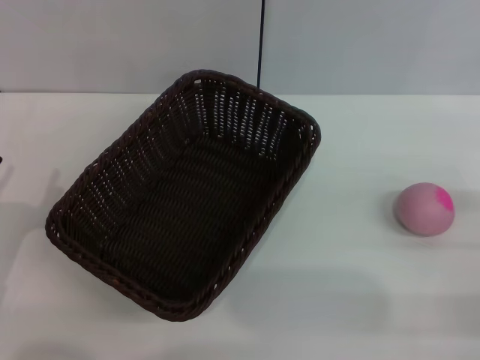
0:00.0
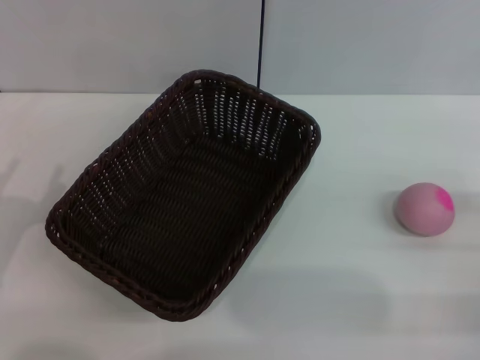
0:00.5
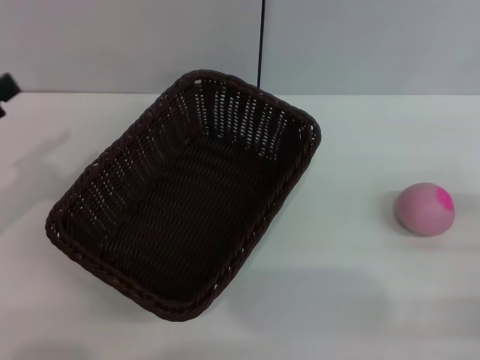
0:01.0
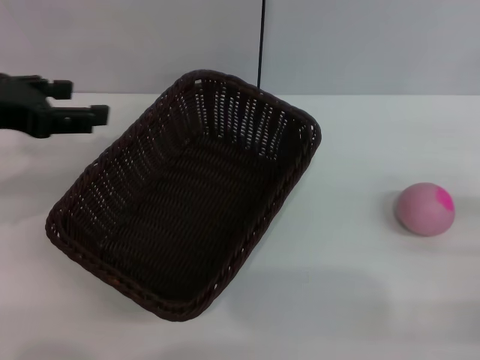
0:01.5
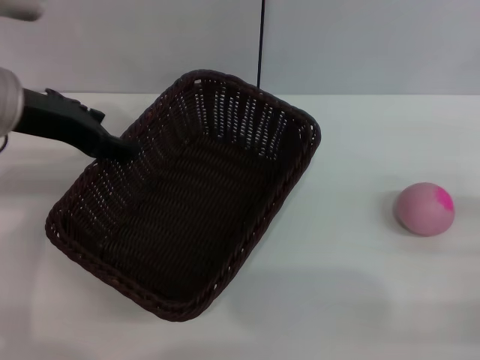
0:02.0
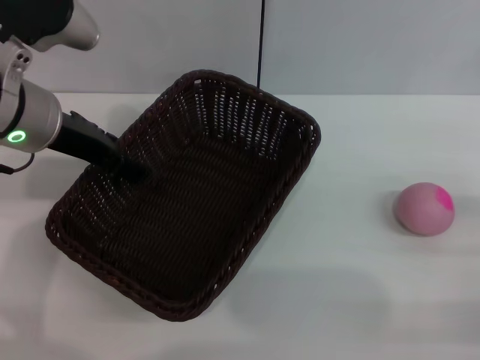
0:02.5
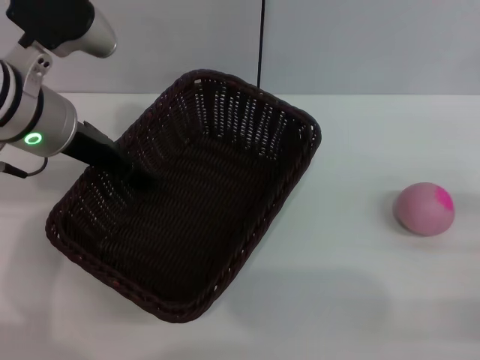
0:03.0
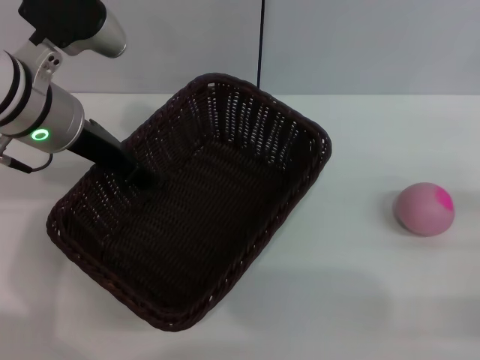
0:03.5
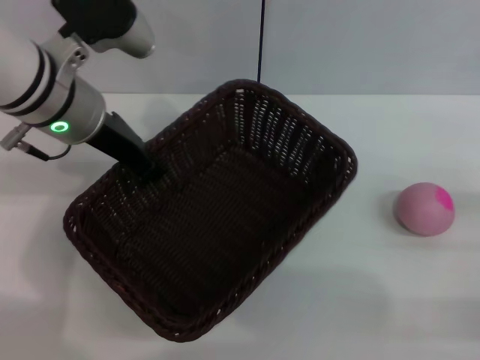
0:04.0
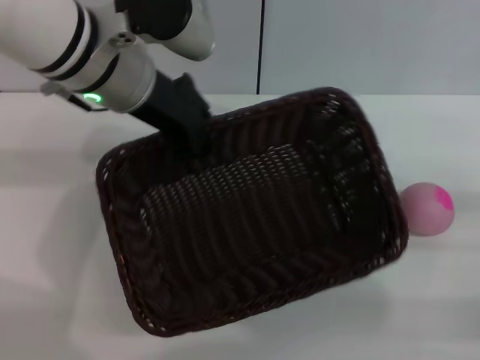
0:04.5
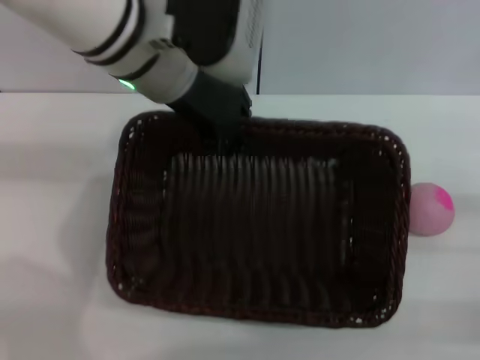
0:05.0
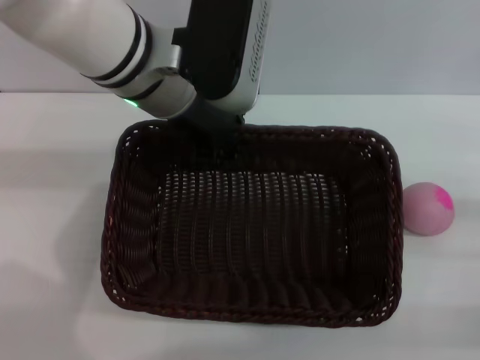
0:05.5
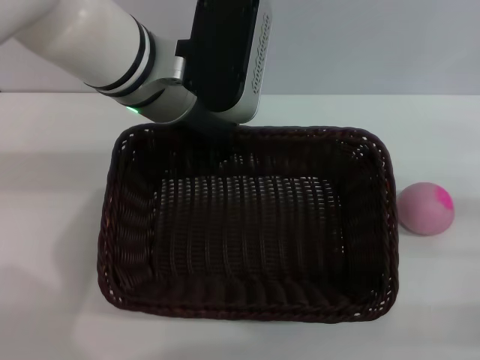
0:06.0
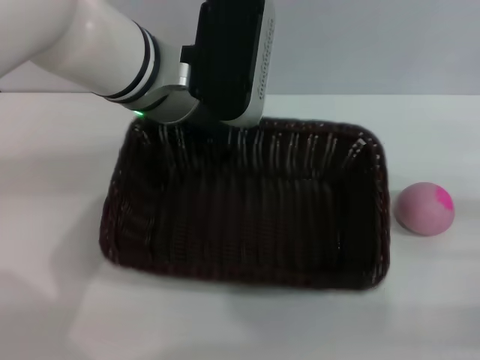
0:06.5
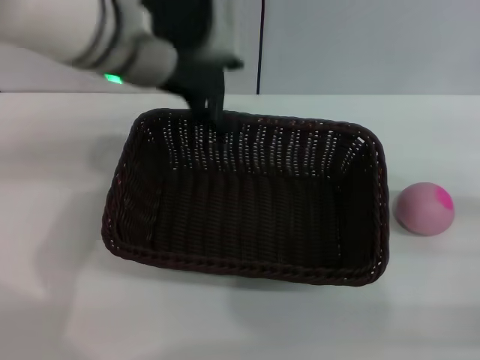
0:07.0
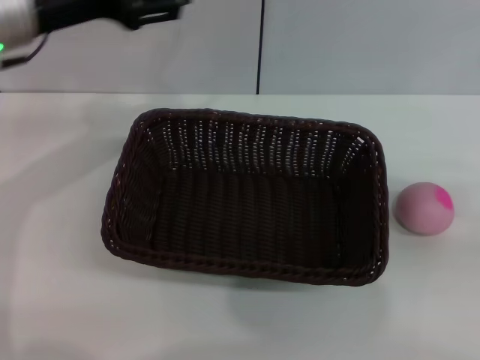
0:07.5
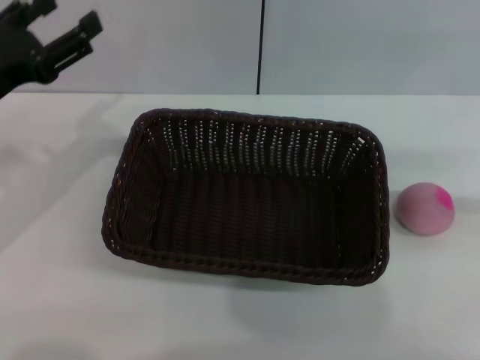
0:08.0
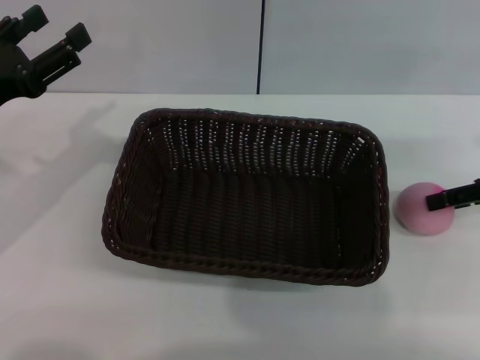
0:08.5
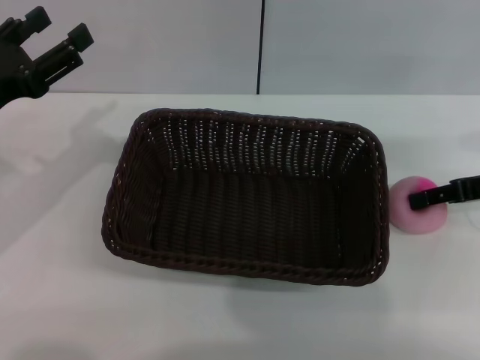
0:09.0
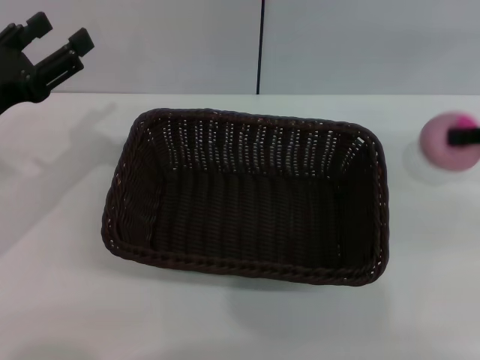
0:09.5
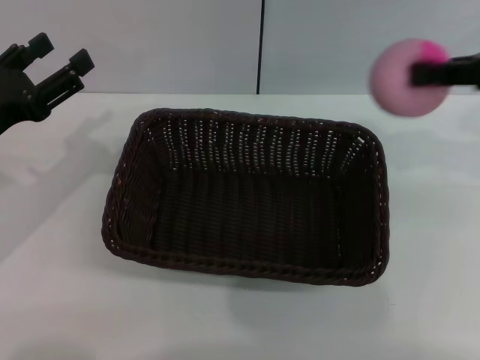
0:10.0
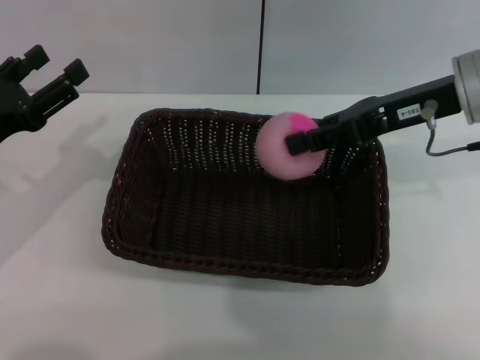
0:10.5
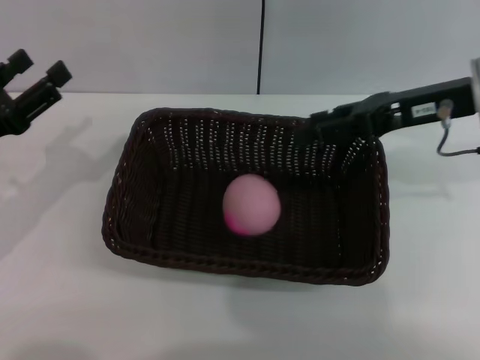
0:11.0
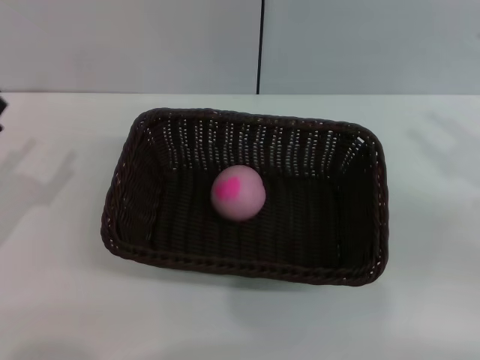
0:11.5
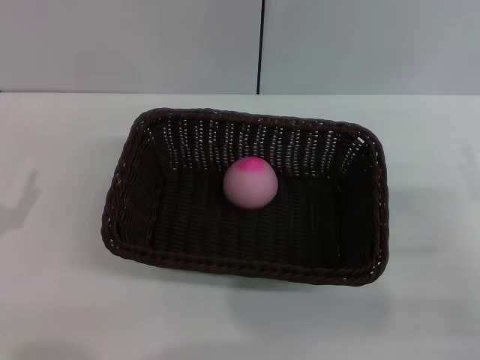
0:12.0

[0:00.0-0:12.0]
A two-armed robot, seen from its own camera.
Step, 0:00.0 to 0:04.0: Pick up the dark basket with the left gripper.
Step, 0:04.5 to 0:06.5: Place the dark basket in the center of view with the right gripper.
Step, 0:07.5 to 0:09.0: Pick up the peach with the left gripper.
Step, 0:10.0 to 0:11.0: Place the peach into the basket with the left gripper.
0:00.0 to 0:02.0: The left gripper goes some 25 cm upward, forward and to the right.
0:02.0 to 0:04.0: The left gripper is displaced to the right by roughly 5 cm, and closes its fingers.
0:04.0 to 0:06.0: The left gripper heads to the right, covering approximately 10 cm.
0:06.0 to 0:08.0: The left gripper travels to the left by some 20 cm, and opens; the right gripper travels upward and forward by some 20 cm.
0:08.0 to 0:10.0: The right gripper travels to the left by roughly 10 cm, goes downward and returns, approximately 10 cm each way, and closes its fingers.
0:10.0 to 0:12.0: The left gripper goes about 10 cm backward and downward. The right gripper heads downward and backward, covering about 20 cm, and opens up.

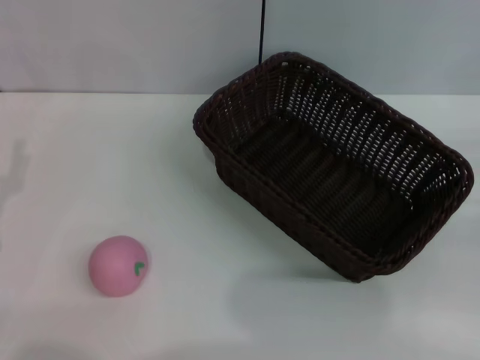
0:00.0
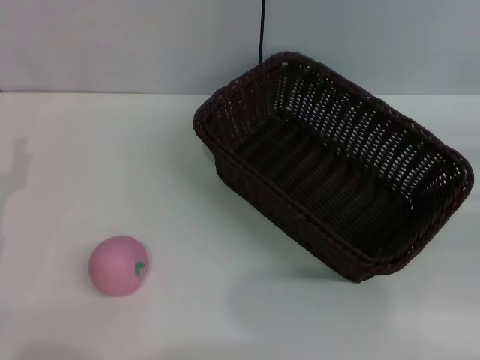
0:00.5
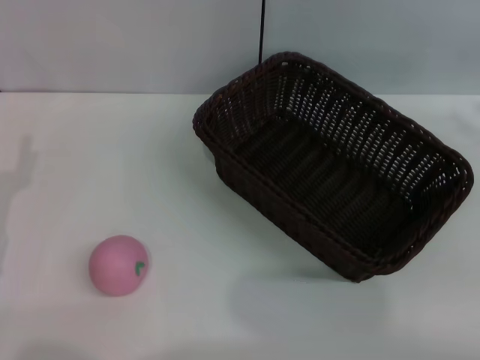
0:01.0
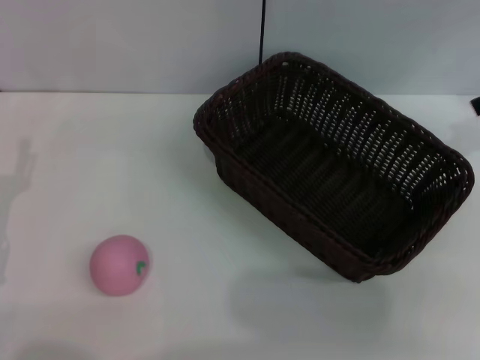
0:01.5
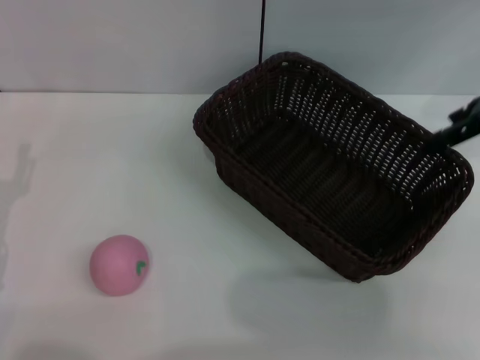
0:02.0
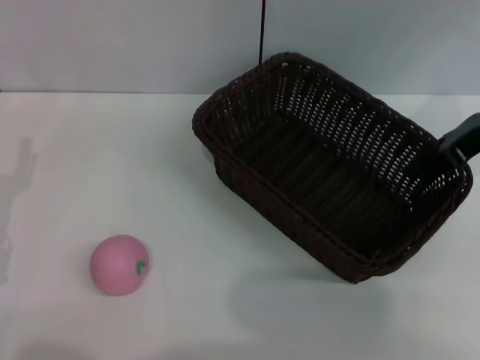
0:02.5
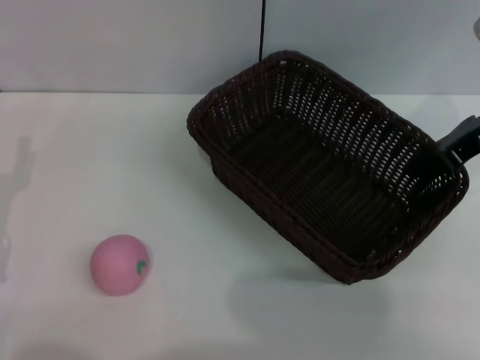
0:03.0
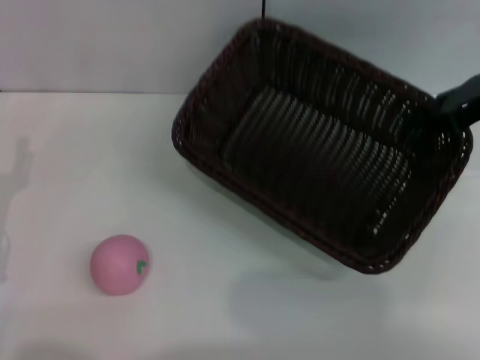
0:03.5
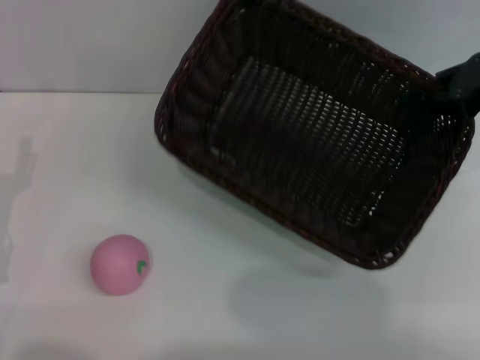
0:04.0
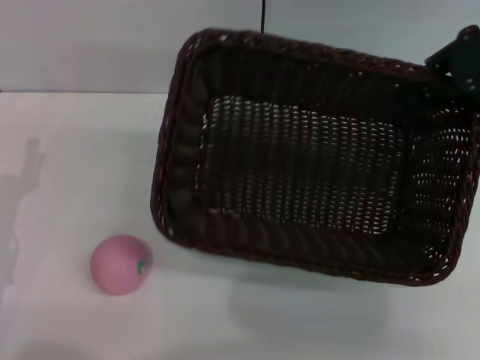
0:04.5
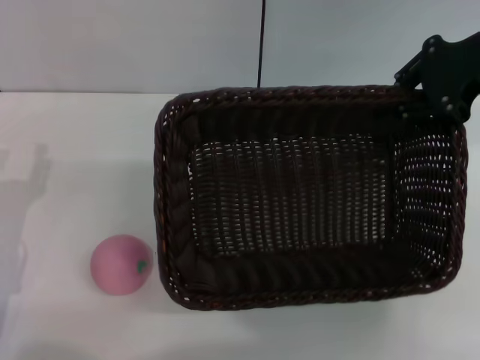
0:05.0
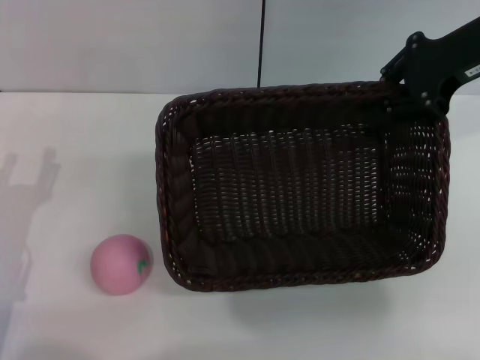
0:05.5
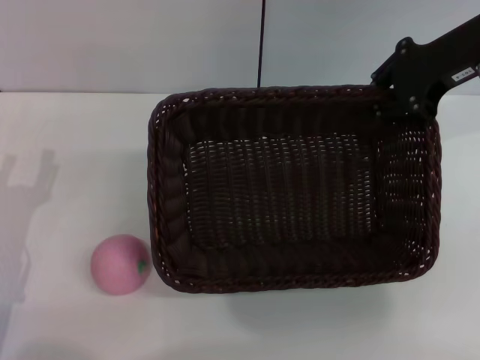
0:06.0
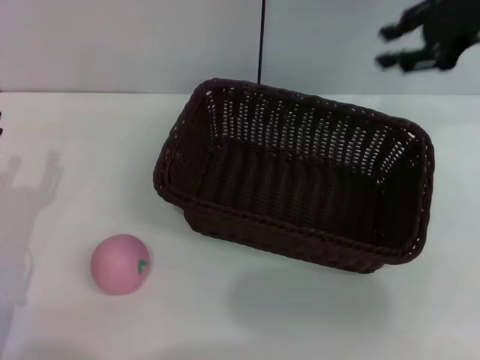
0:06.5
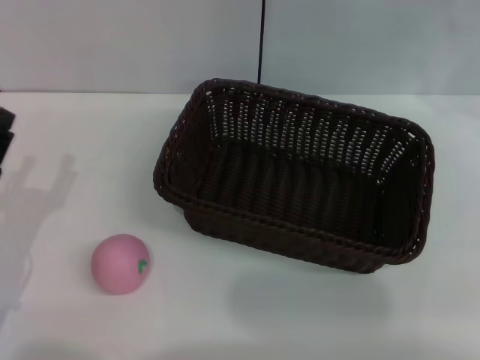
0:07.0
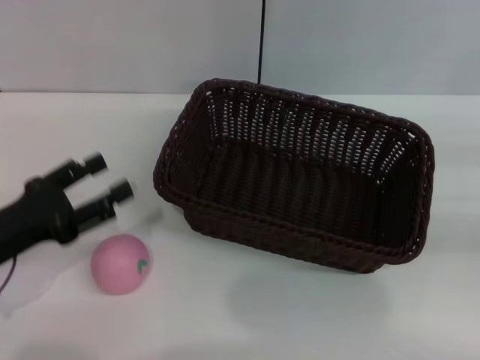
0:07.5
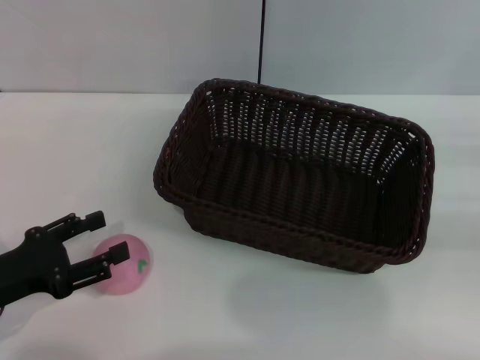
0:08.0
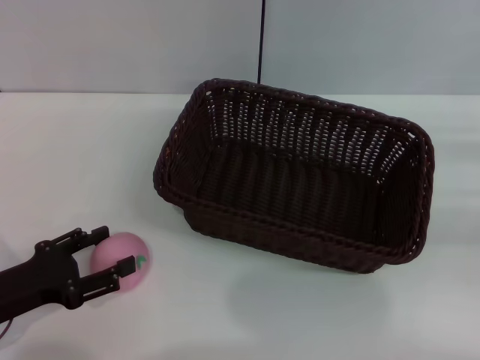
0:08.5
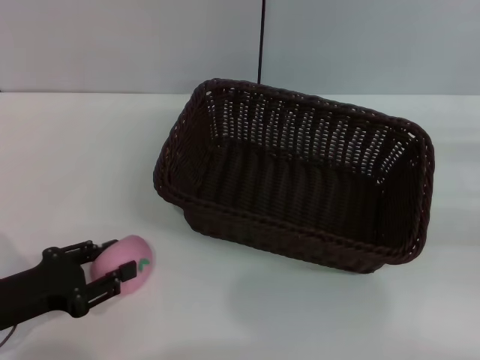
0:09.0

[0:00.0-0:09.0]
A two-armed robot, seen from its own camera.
Step, 0:00.0 to 0:03.5: Pick up the dark basket with the right gripper.
Step, 0:04.0 to 0:06.0: Place the dark basket in the center of view with the right gripper.
0:00.0 to 0:02.0: The right gripper shifts roughly 25 cm upward, forward and to the left, and opens.
0:02.0 to 0:04.5: The right gripper closes.
0:04.5 to 0:07.0: The right gripper goes approximately 10 cm to the right and downward, and opens its fingers.

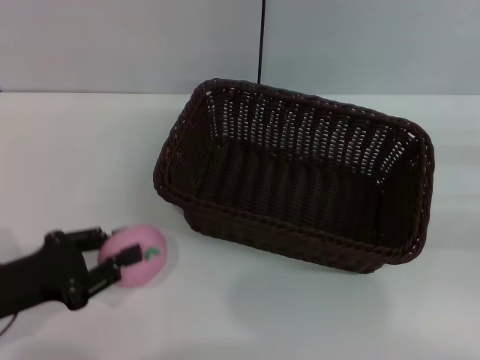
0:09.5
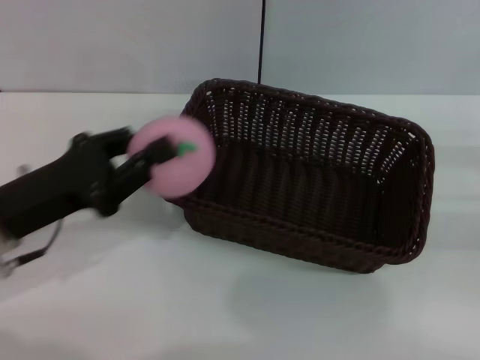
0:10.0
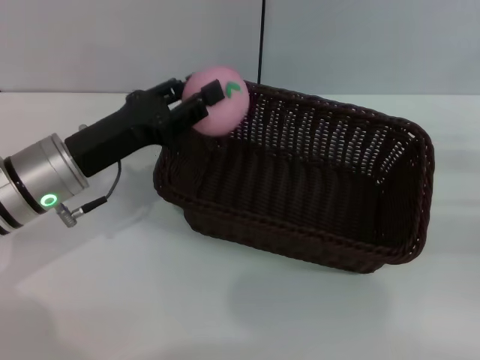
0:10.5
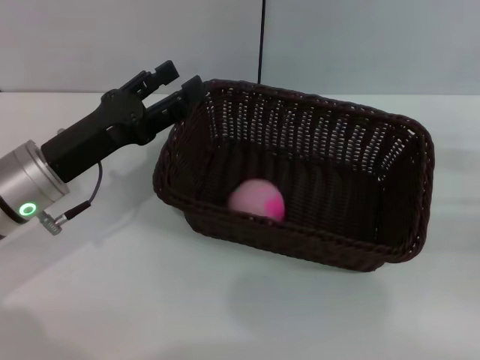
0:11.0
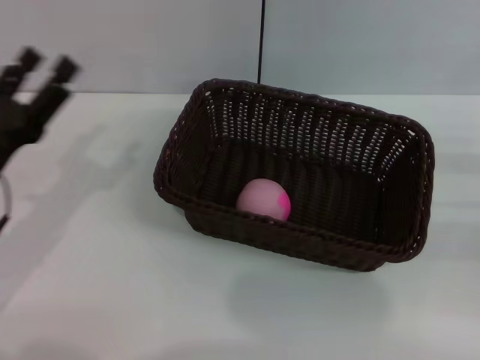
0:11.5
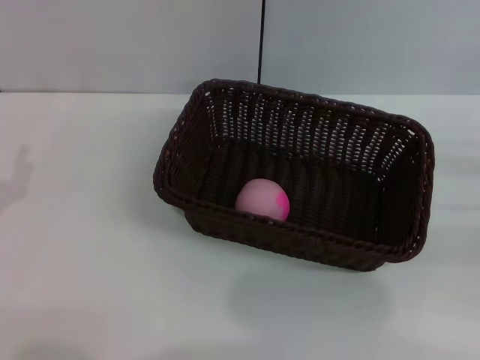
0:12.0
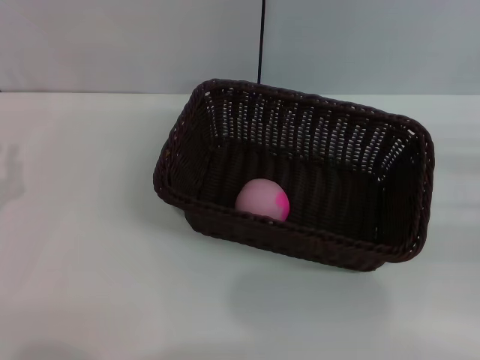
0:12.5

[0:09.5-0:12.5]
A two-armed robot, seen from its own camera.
Step, 0:10.0 to 0:11.0: Place the peach into the basket with the left gripper.
0:09.5 to 0:11.0: The left gripper shifts roughly 10 cm forward and to the right, and opens up.
0:11.0 to 0:12.5: The left gripper heads to the left and backward, covering some 15 cm, and closes up.
